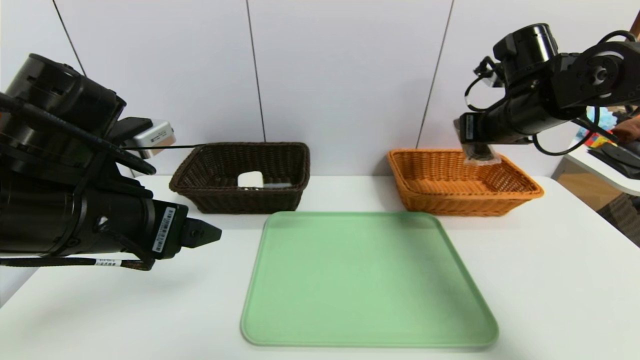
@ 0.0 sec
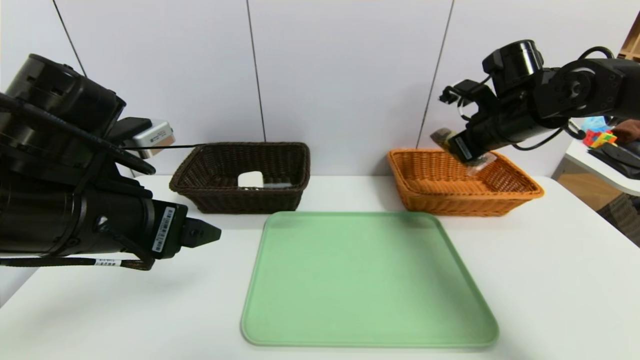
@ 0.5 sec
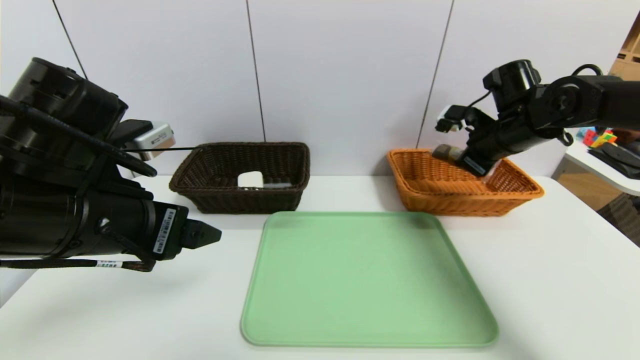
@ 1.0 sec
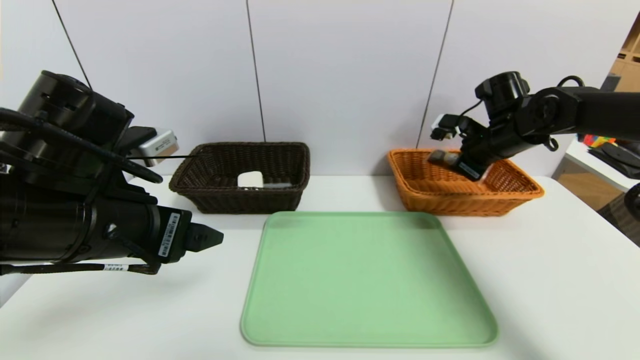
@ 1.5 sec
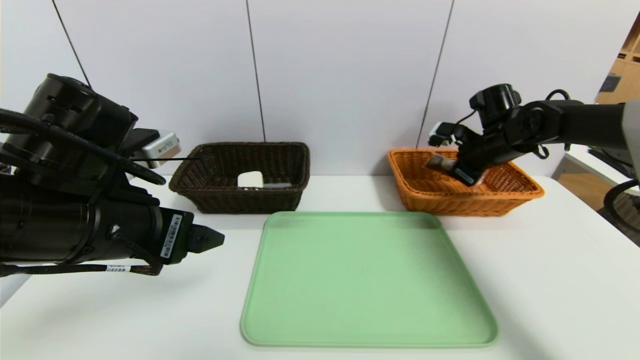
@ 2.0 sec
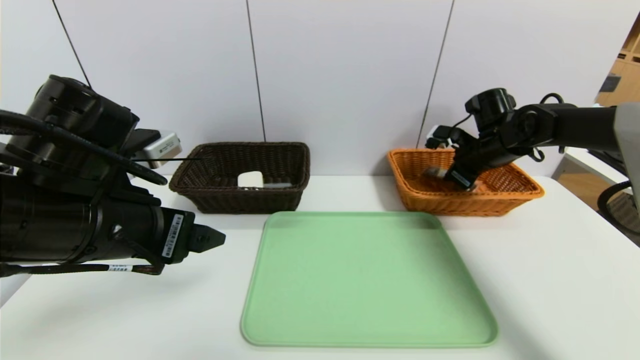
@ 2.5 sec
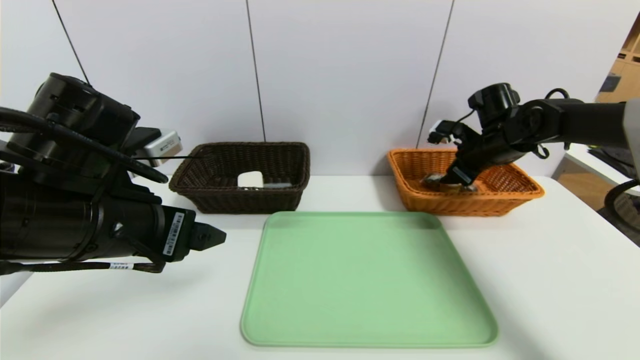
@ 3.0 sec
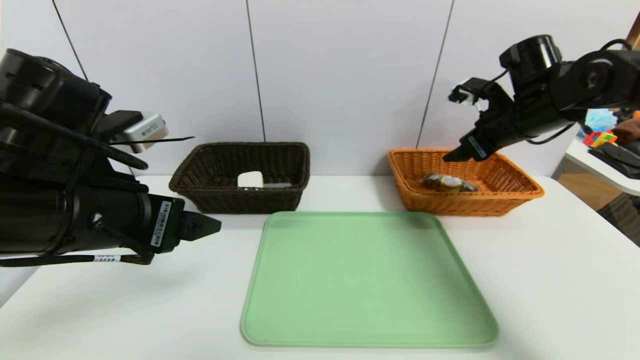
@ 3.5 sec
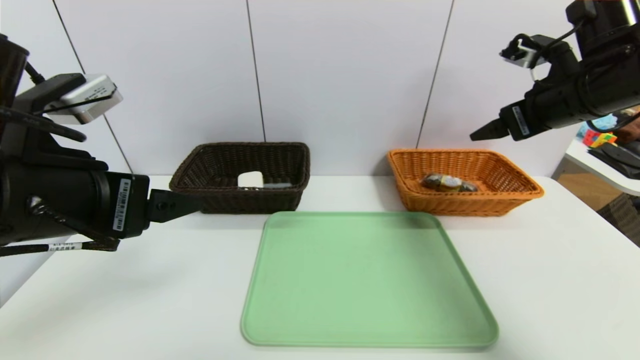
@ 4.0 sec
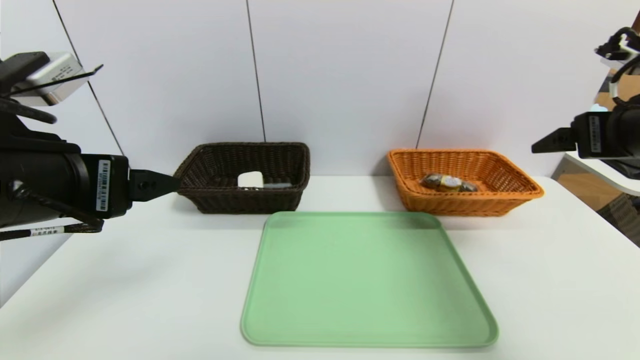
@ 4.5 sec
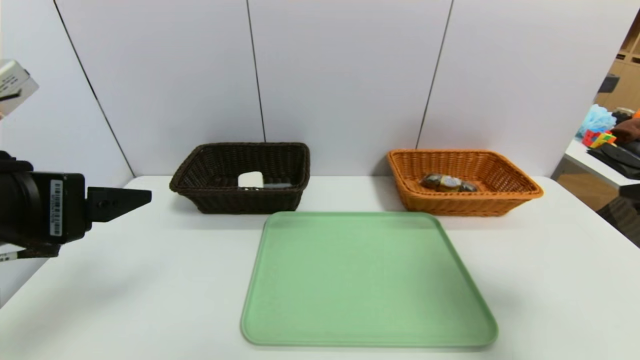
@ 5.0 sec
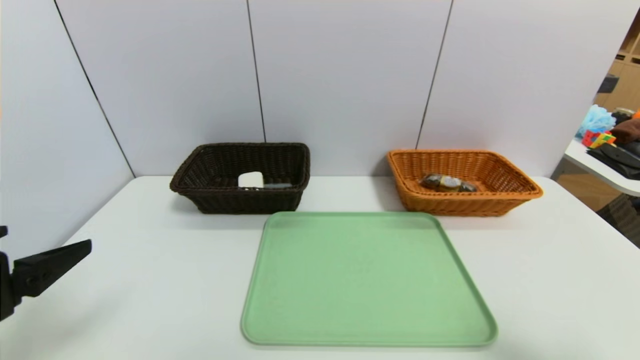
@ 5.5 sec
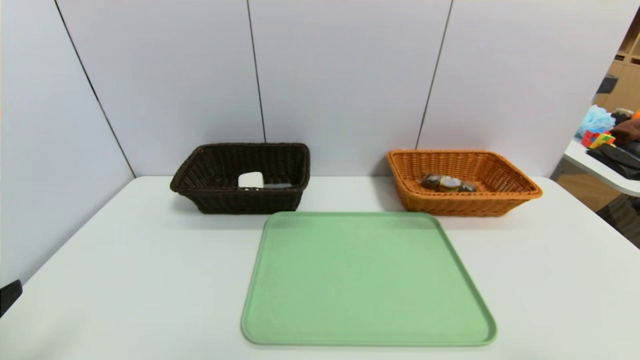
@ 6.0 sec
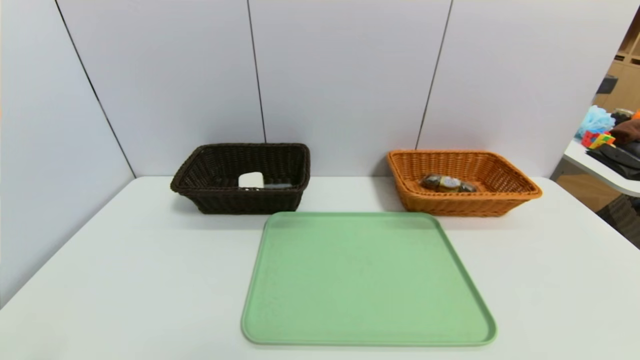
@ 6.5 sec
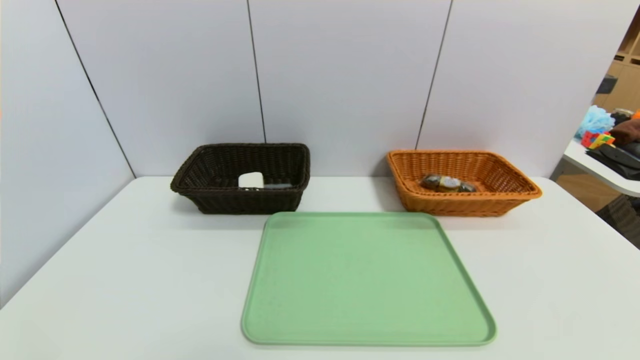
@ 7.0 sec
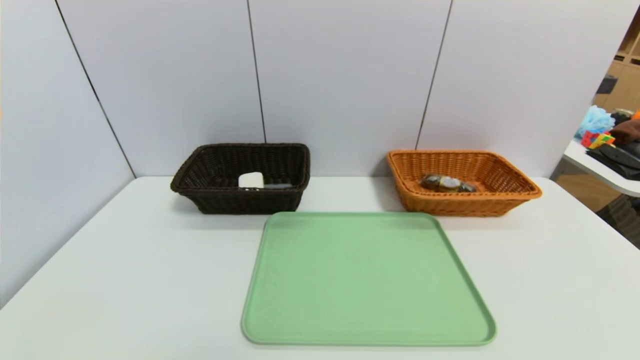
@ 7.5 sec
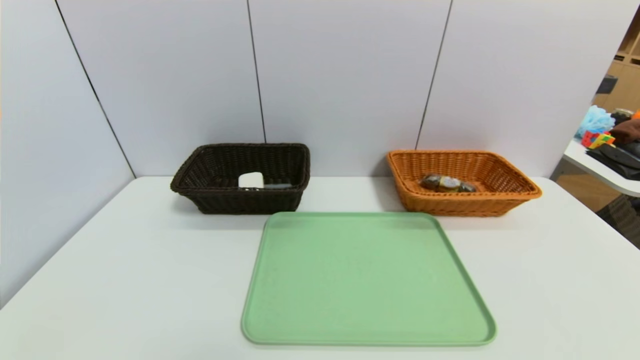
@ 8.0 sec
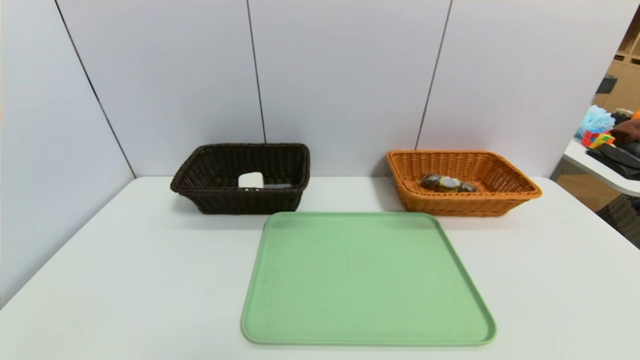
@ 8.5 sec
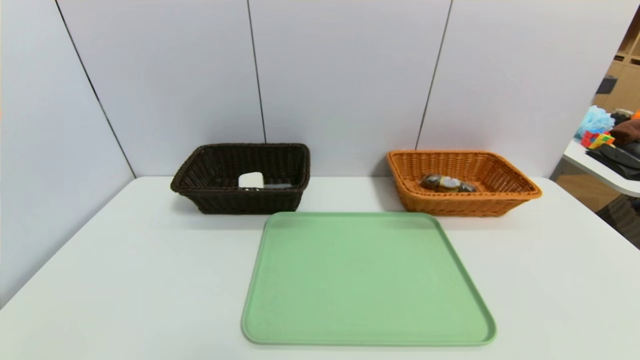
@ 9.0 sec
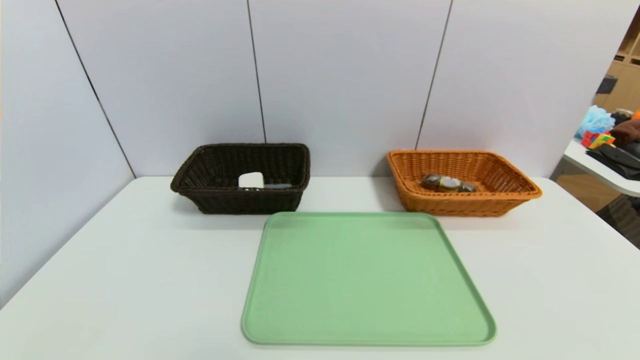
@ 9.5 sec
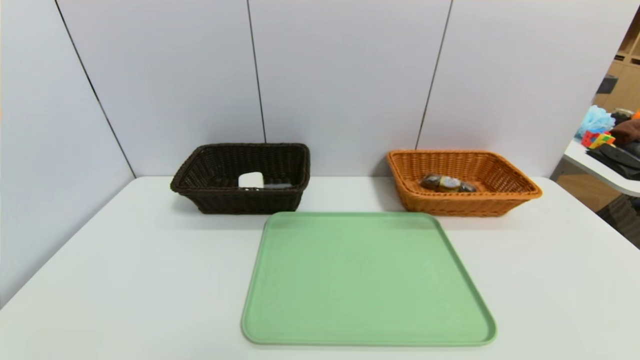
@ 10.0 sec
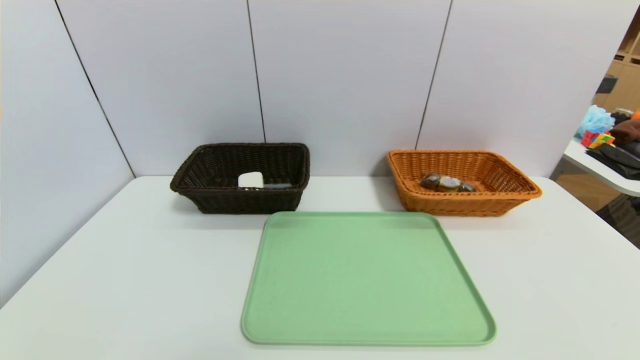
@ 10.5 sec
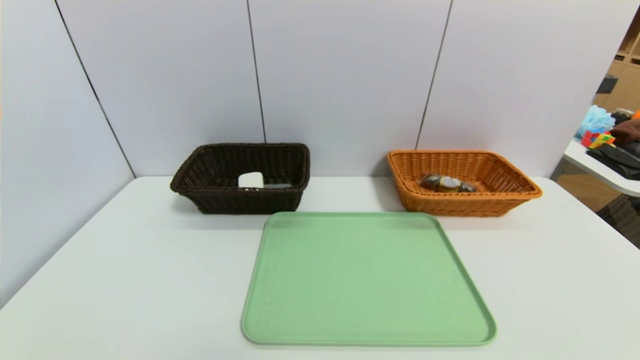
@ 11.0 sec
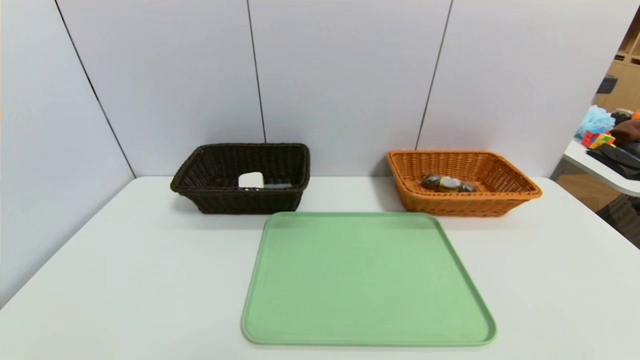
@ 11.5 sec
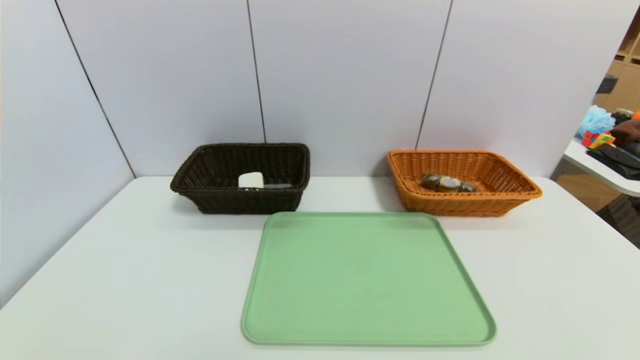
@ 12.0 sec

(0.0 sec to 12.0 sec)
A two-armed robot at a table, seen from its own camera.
Task of the whole recording: place the food in the right basket with the right gripper, and place the non food items in the left basket with the left gripper.
Step, 0.0 sec - 3.0 sec: Grasp the chocolate and put it in the right basket.
0.0 sec - 2.0 sec: The right gripper heads downward and forward, covering roughly 10 cm.
2.0 sec - 4.0 sec: The right gripper is displaced upward and backward by approximately 15 cm, and opens its fingers. Meanwhile the left gripper moves approximately 5 cm.
4.0 sec - 6.0 sec: The left gripper travels backward, to the left and downward by some 15 cm. The right gripper shifts about 35 cm backward.
